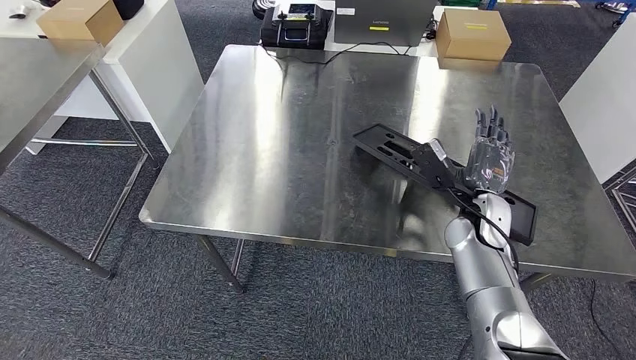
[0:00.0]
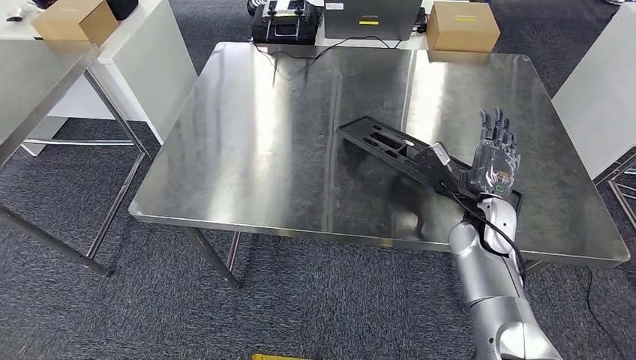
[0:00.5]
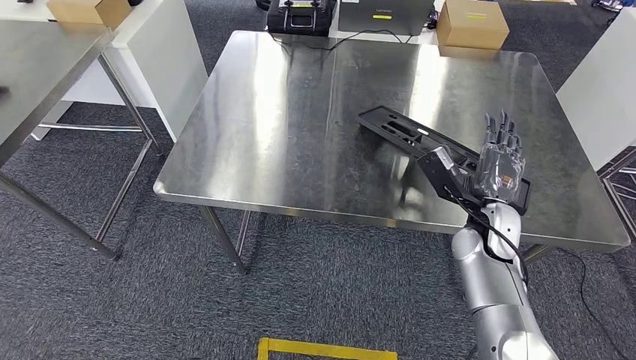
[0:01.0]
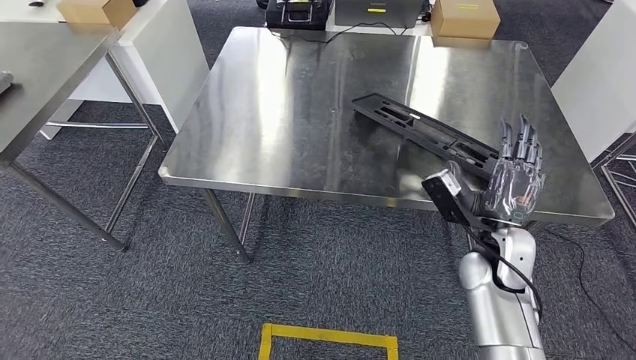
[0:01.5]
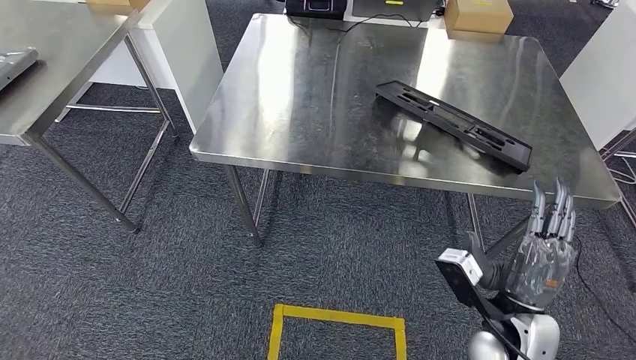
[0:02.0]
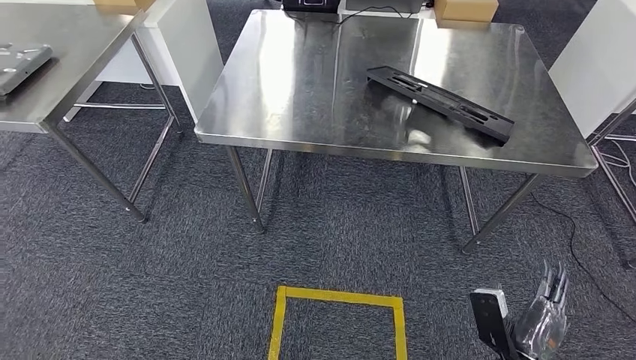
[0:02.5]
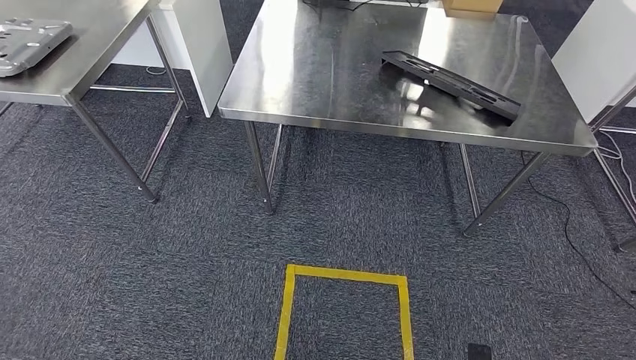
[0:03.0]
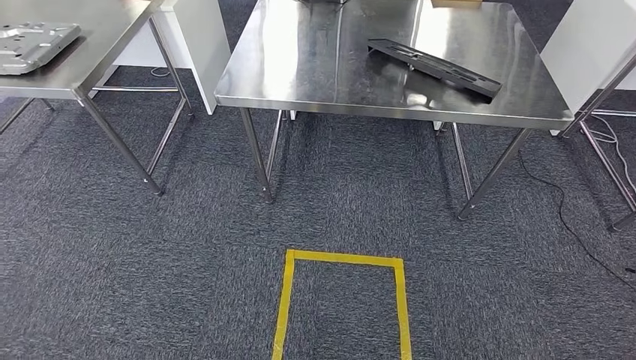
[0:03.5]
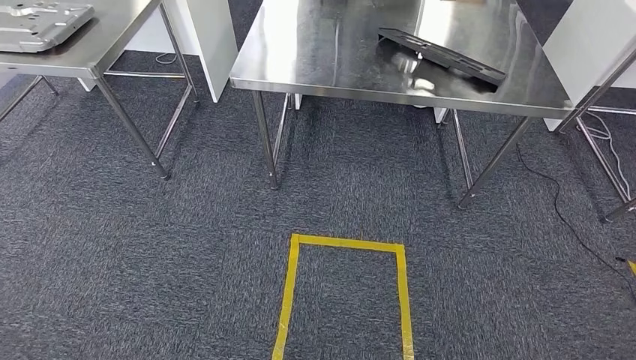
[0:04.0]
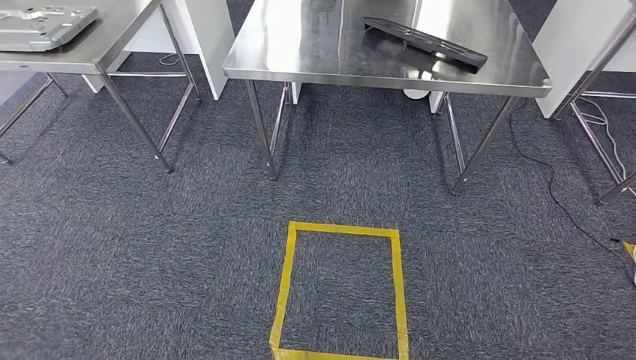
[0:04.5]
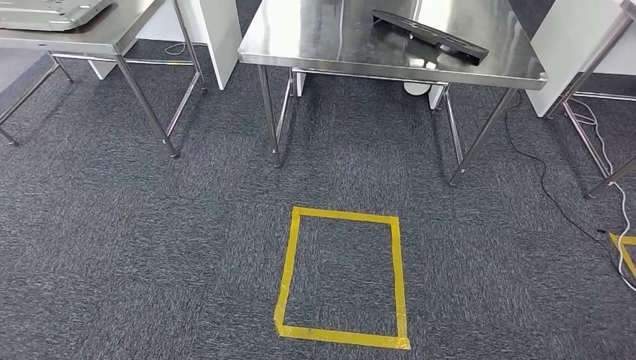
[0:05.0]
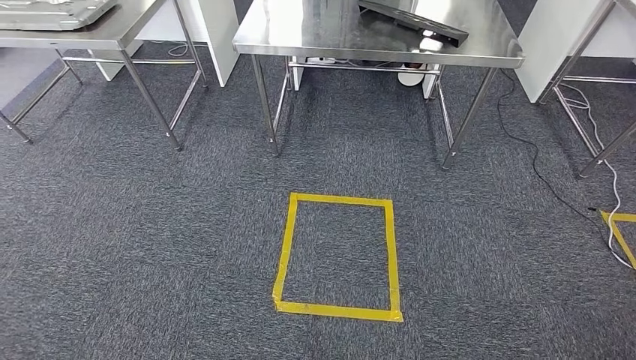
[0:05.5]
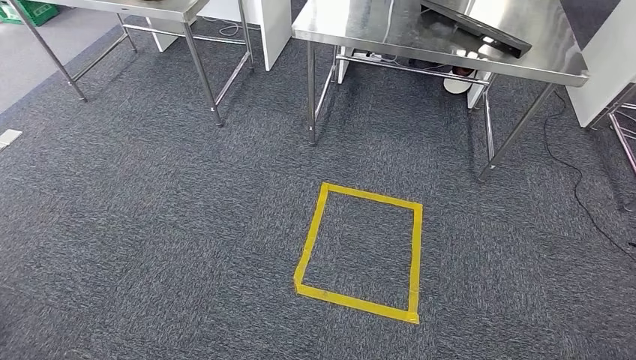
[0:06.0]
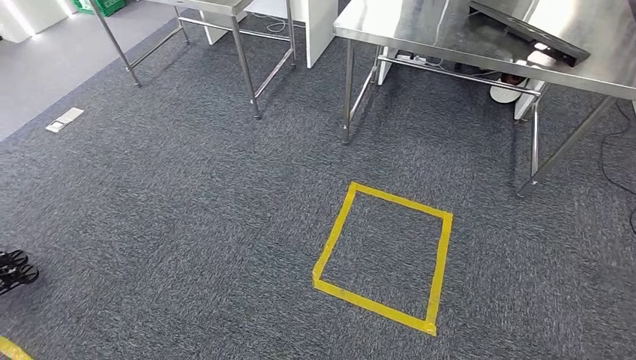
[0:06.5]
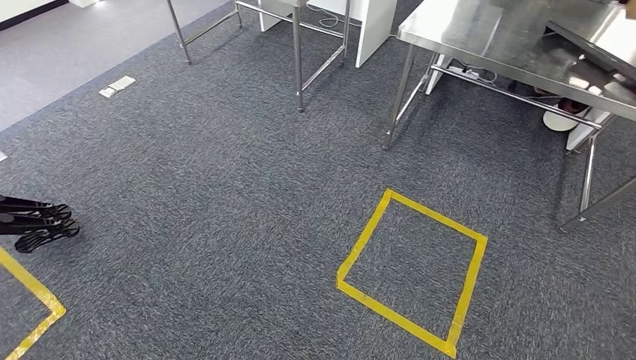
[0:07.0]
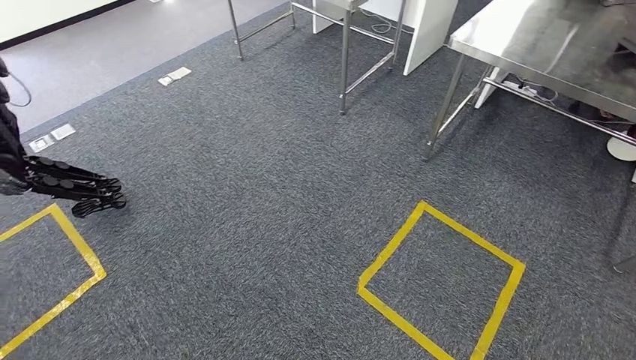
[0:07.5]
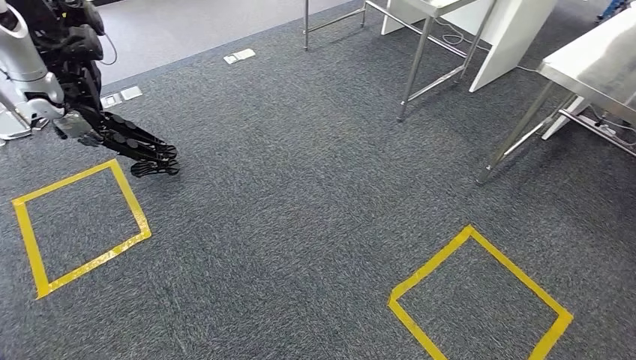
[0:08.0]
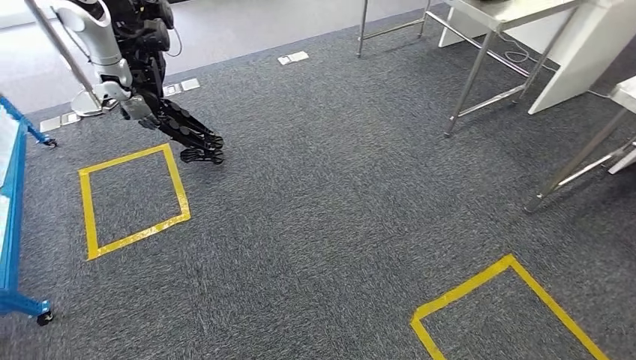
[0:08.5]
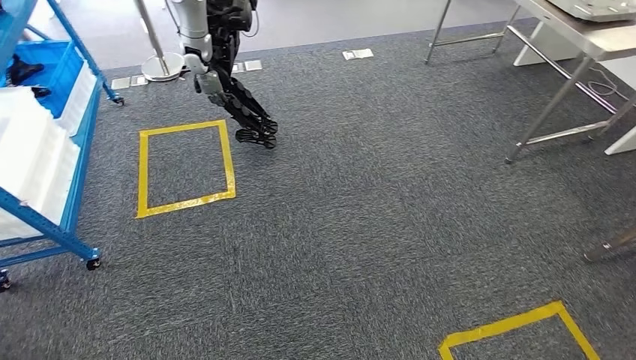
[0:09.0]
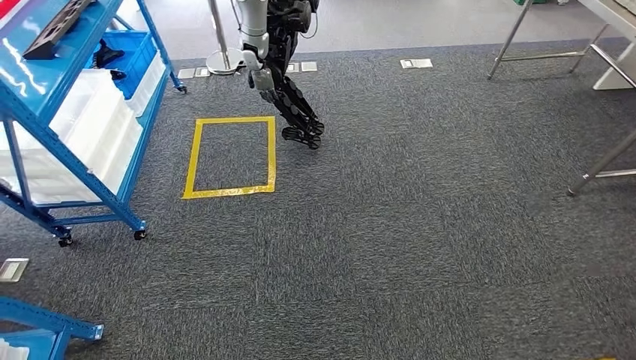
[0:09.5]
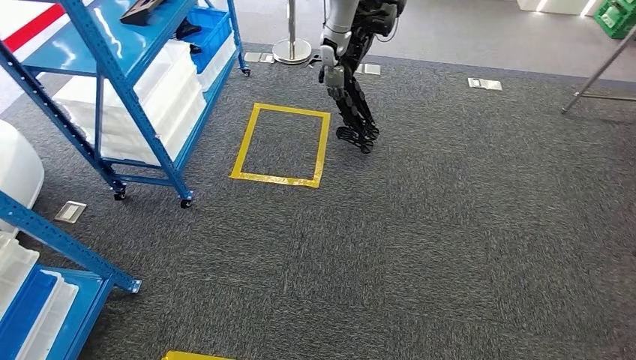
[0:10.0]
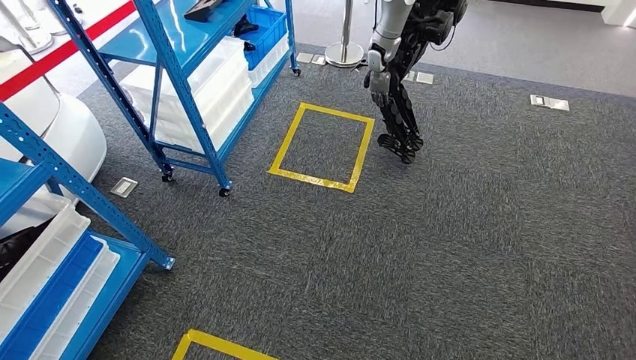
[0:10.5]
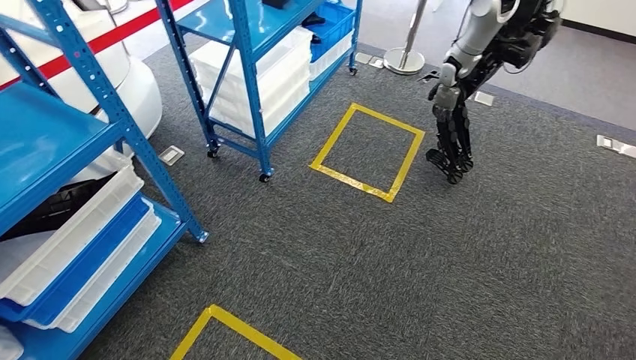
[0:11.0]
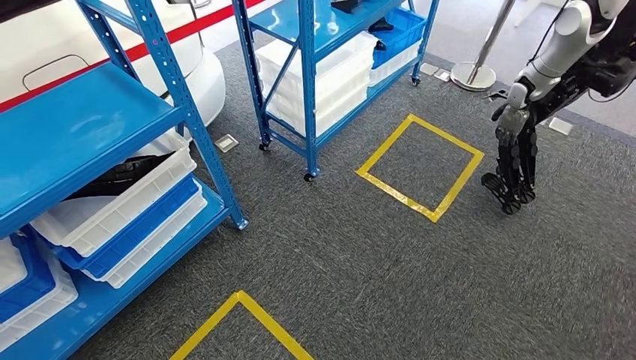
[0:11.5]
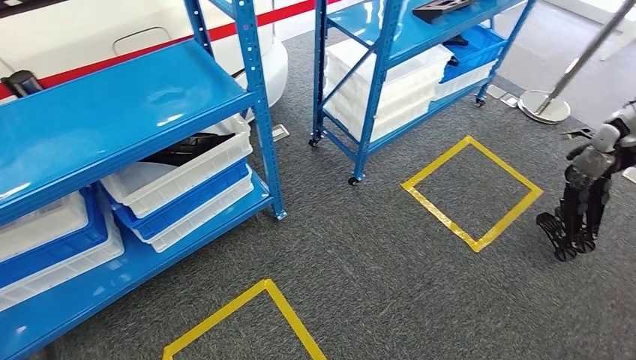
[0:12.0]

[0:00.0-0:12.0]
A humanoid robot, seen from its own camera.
Step, 0:00.0 to 0:05.0: Insert the large material into the corresponding hole on the workbench.

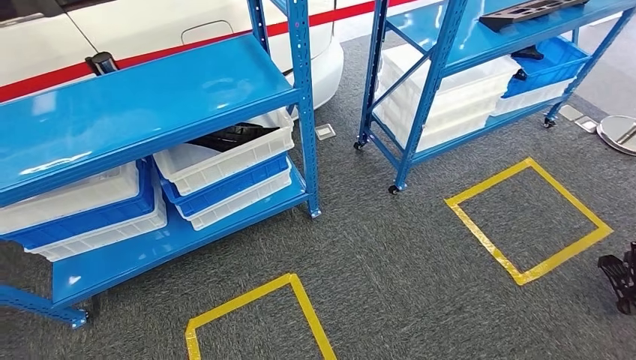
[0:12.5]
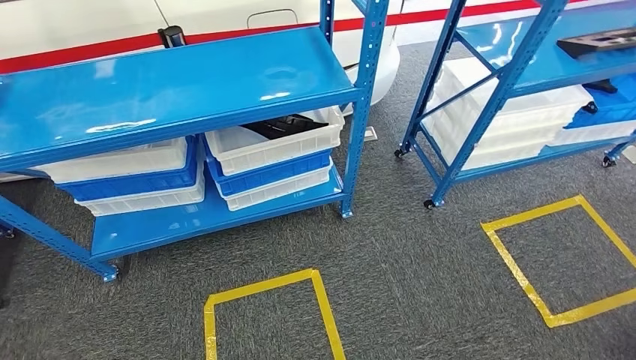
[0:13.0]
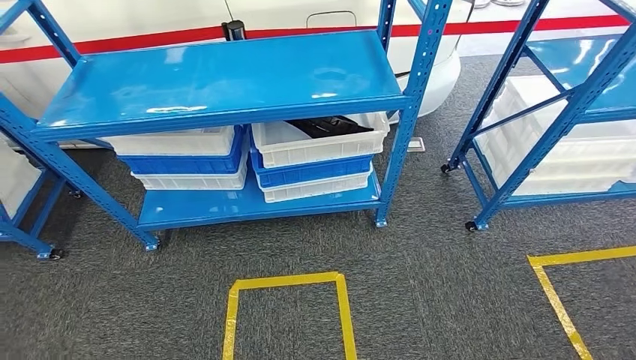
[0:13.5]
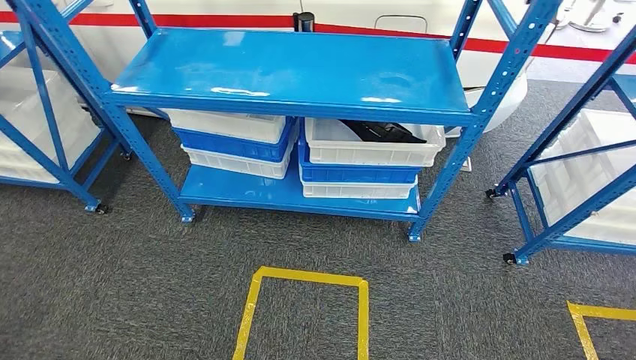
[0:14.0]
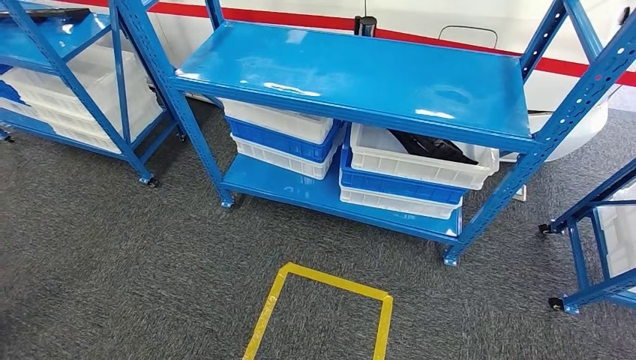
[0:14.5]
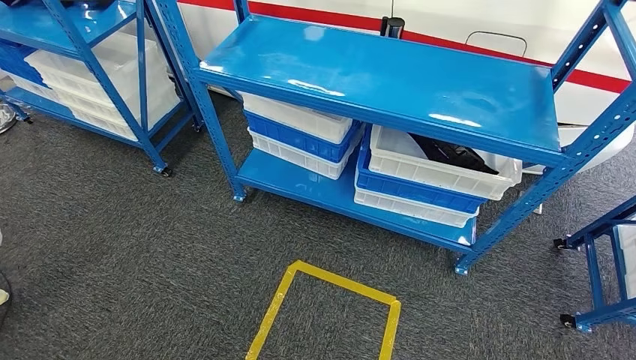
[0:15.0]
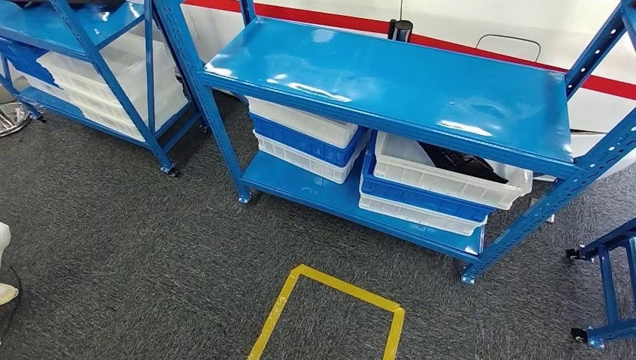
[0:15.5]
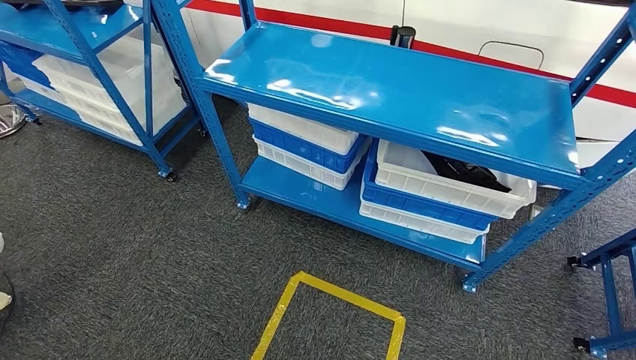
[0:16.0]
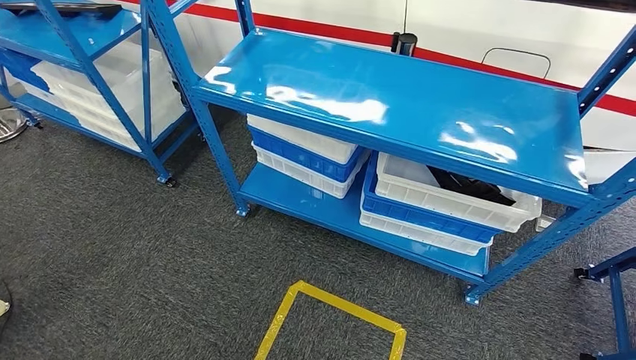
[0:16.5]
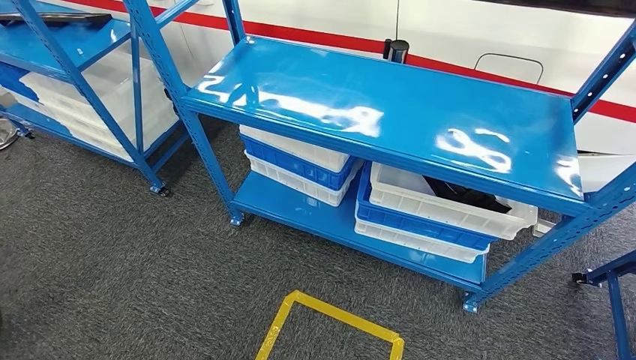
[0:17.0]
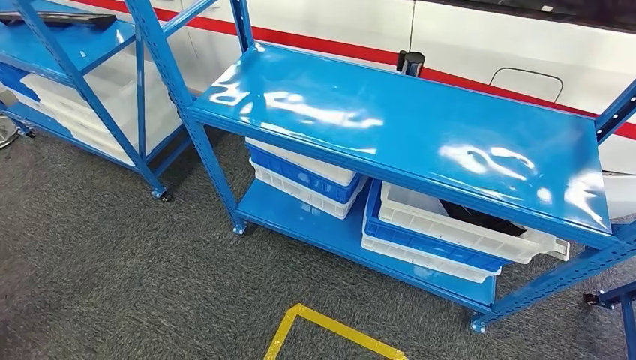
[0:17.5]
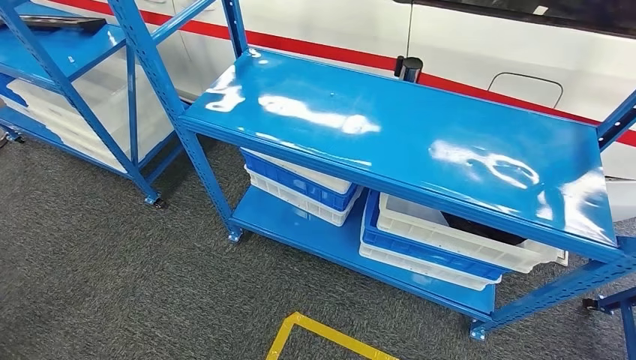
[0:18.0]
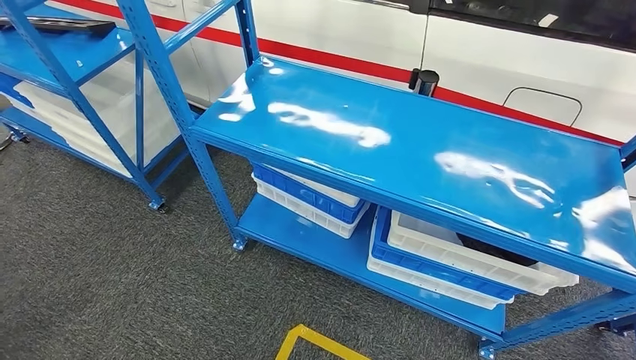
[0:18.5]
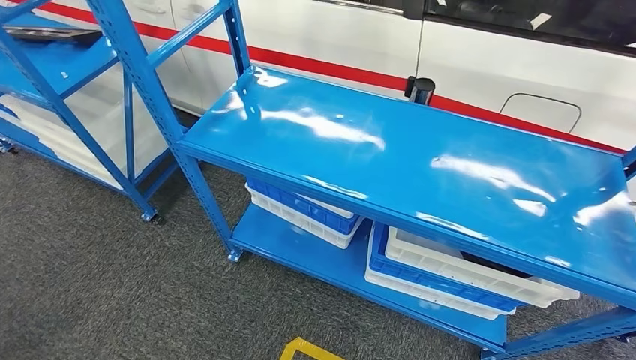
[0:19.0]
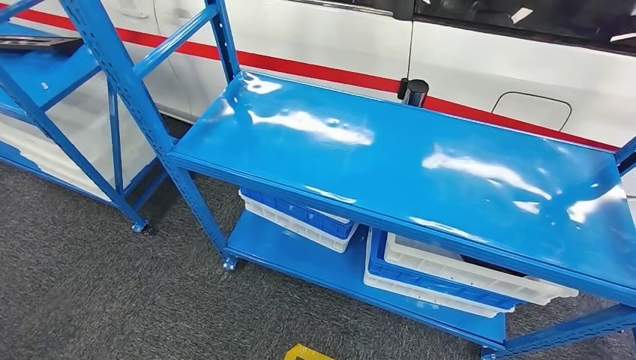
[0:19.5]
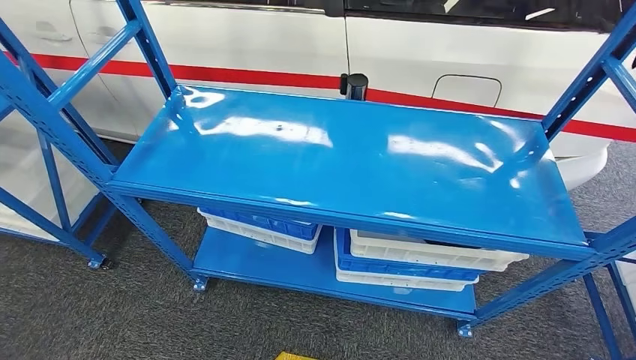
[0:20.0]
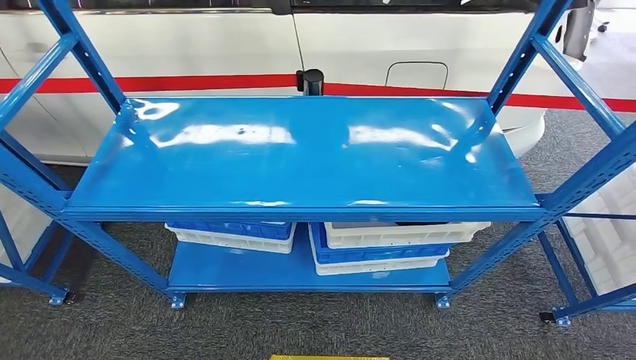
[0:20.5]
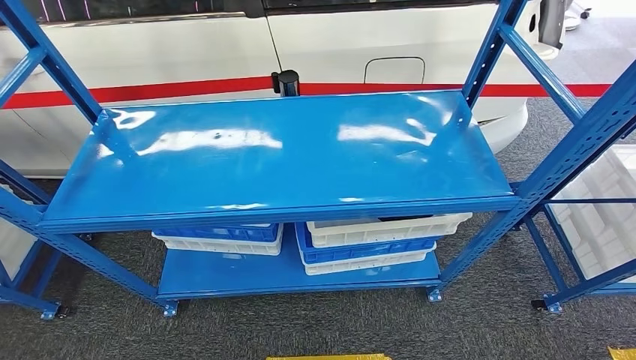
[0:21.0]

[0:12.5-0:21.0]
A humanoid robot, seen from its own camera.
Step, 0:12.5 to 0:21.0: Move to the initial position of the shelf.
